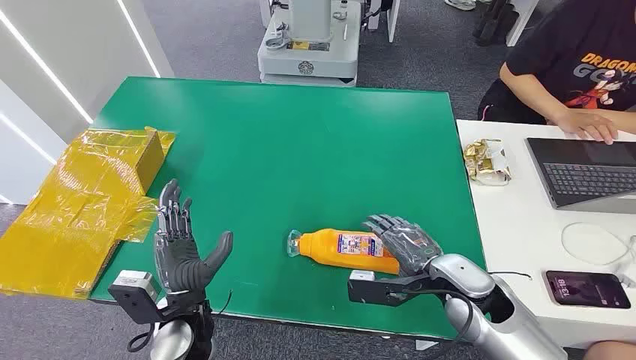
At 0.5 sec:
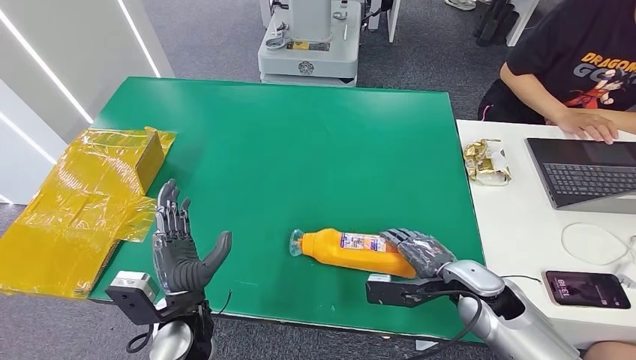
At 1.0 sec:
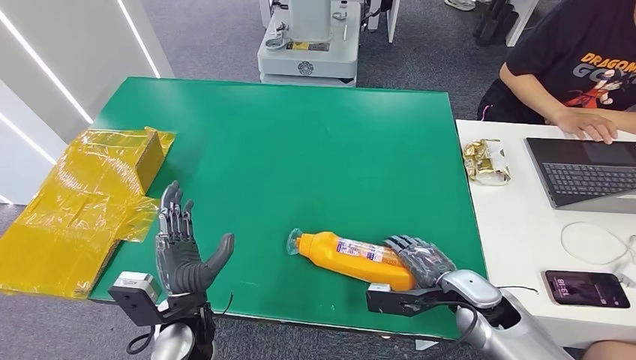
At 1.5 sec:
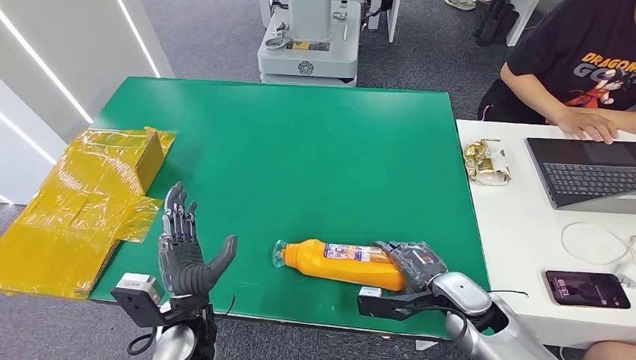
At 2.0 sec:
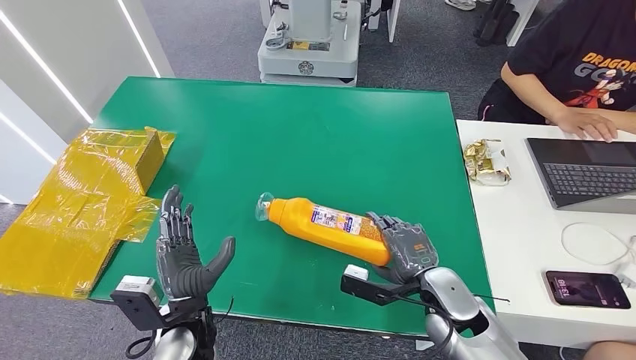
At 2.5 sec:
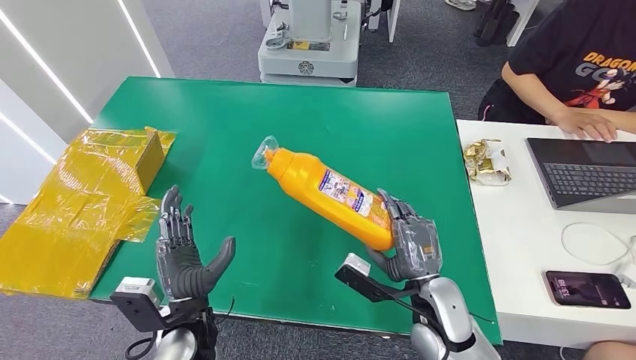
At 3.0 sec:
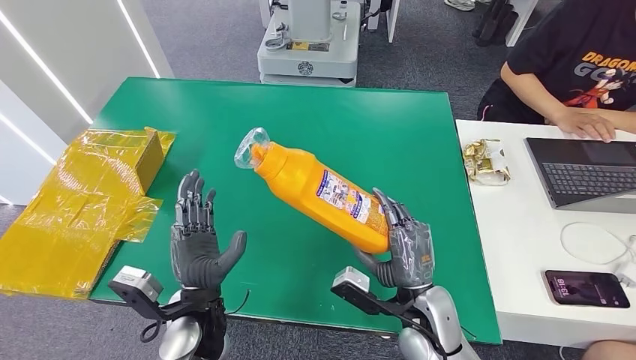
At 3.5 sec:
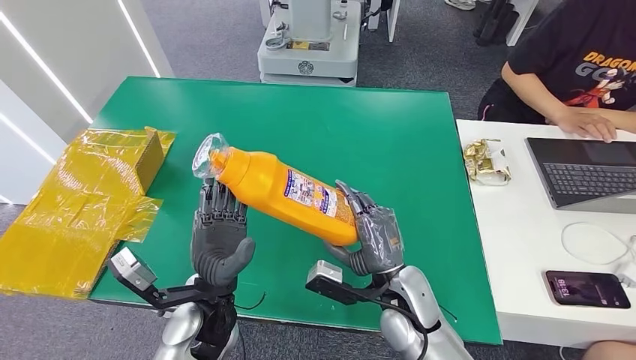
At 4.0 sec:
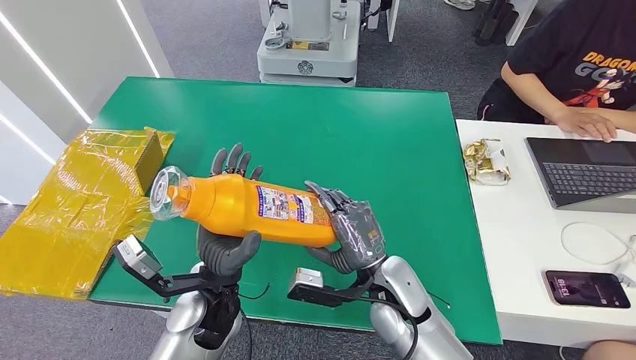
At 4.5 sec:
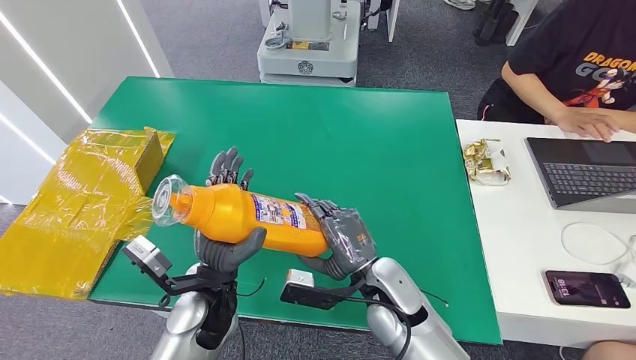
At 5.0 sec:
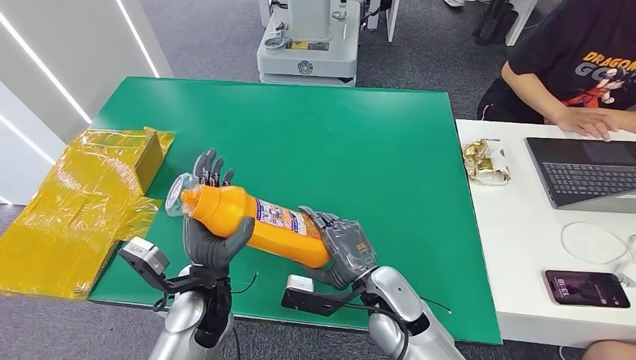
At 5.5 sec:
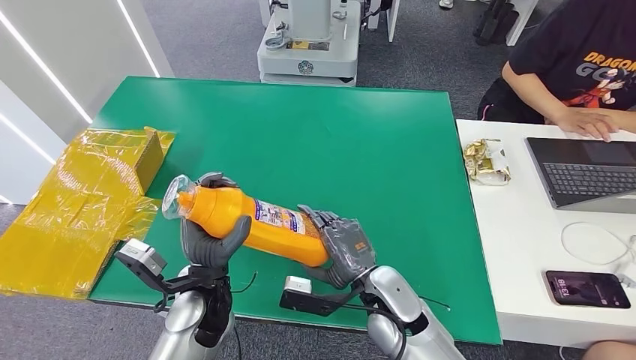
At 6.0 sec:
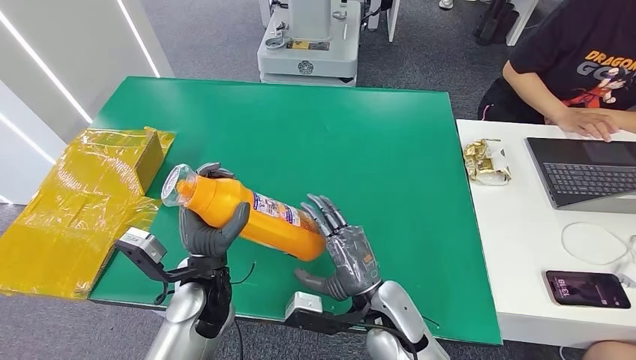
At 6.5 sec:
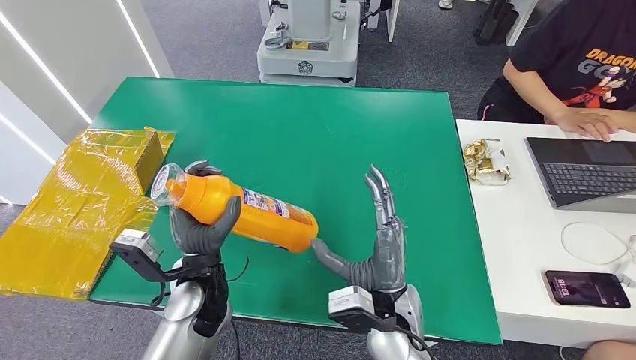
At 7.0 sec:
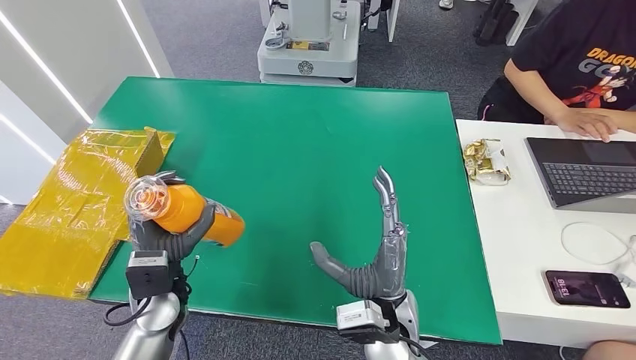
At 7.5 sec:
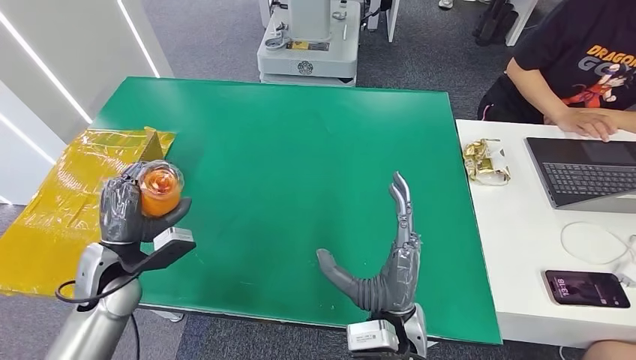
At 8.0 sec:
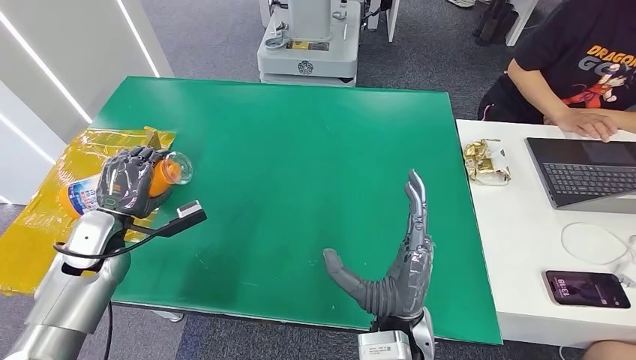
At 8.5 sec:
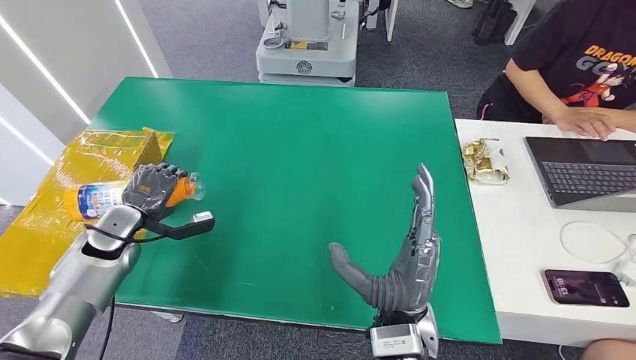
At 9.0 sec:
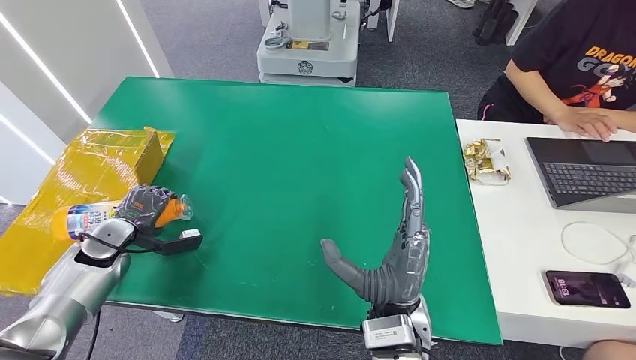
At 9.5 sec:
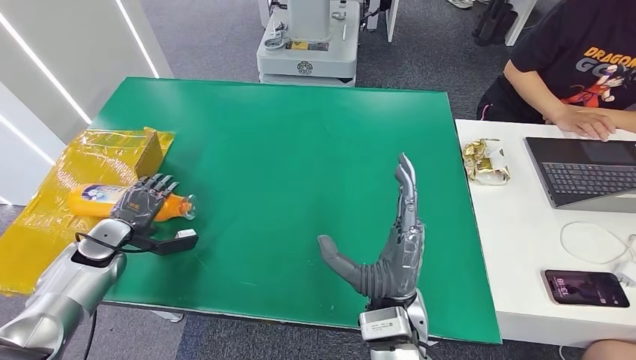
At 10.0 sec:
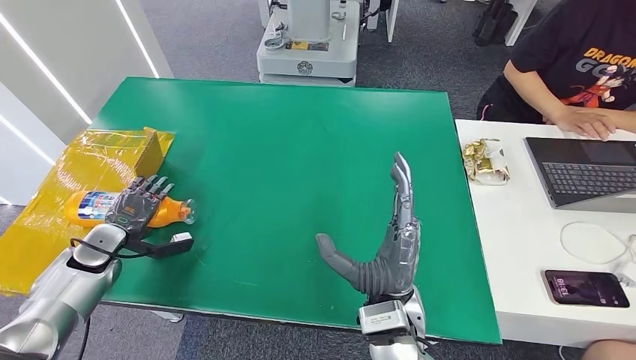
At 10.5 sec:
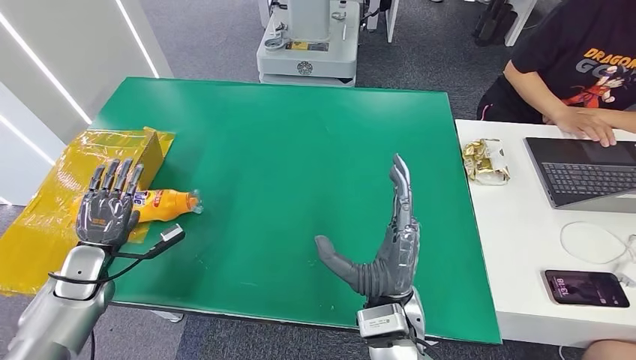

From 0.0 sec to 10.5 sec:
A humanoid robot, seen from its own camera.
Step, from 0.0 sec to 2.0 sec: Pick up the bottle from the table.
Step, from 3.0 sec to 10.5 sec: Turn the bottle to the front side.
From 2.0 sec to 4.0 sec: The right hand heads to the left, covering approximately 10 cm; the left hand ends up some 5 cm from where it was.
From 6.5 sec to 8.5 sec: The right hand moves some 5 cm. Meanwhile the left hand goes approximately 25 cm to the left.
From 8.5 sec to 10.5 sec: The left hand goes roughly 5 cm backward.

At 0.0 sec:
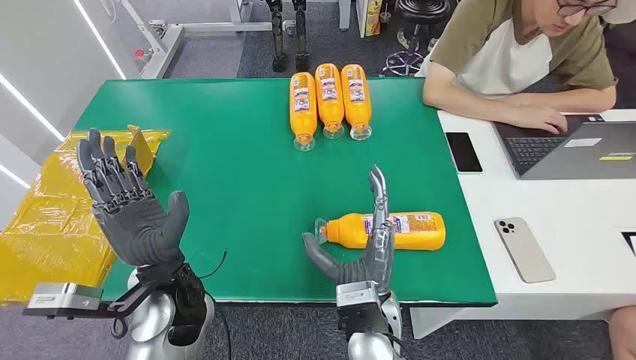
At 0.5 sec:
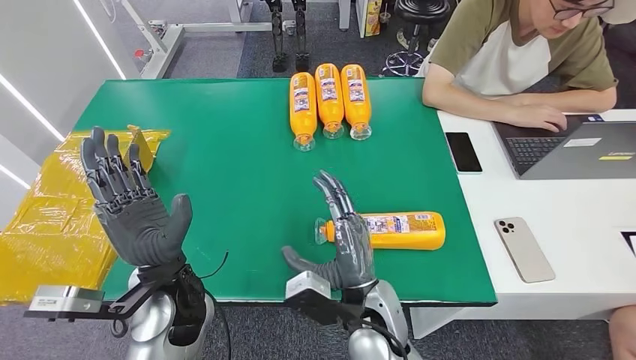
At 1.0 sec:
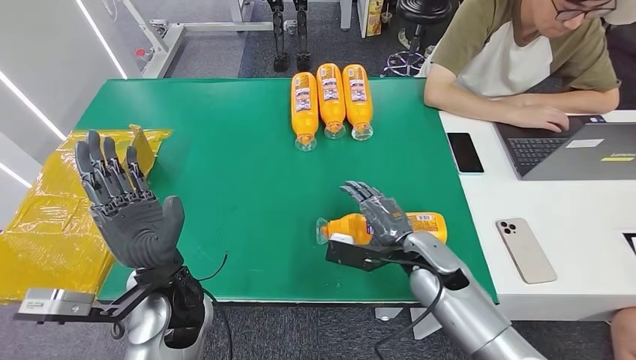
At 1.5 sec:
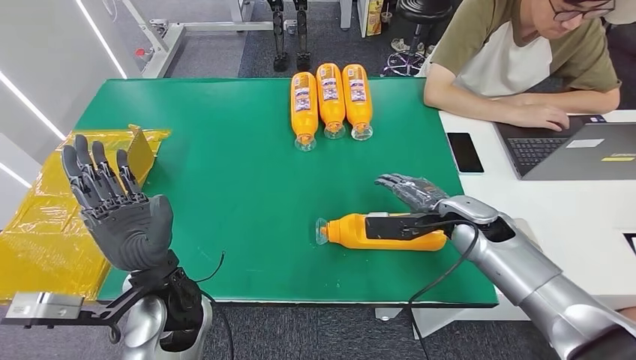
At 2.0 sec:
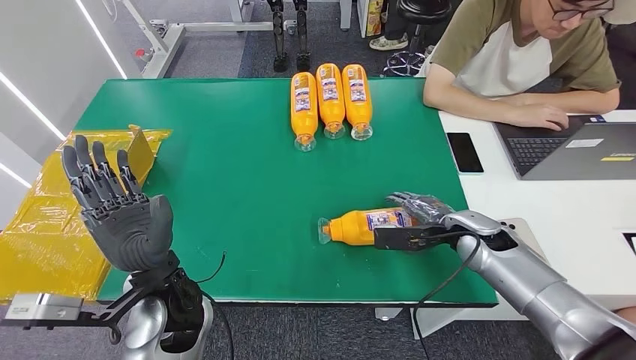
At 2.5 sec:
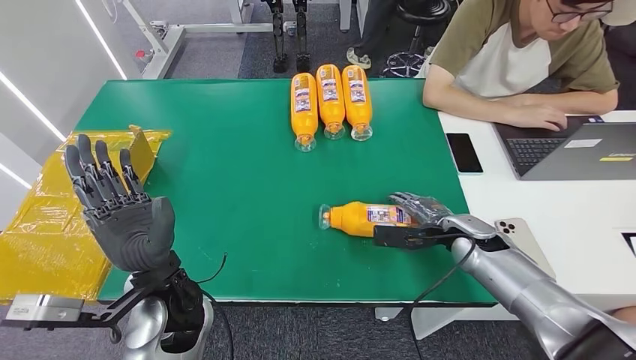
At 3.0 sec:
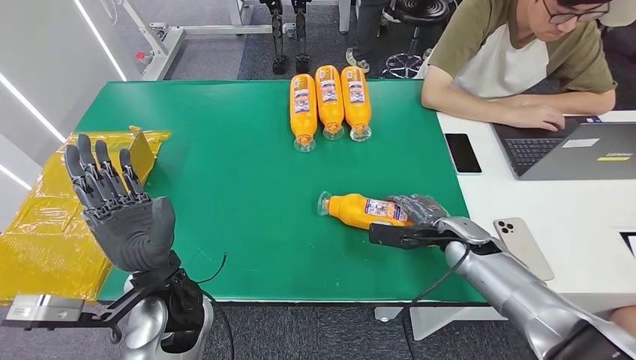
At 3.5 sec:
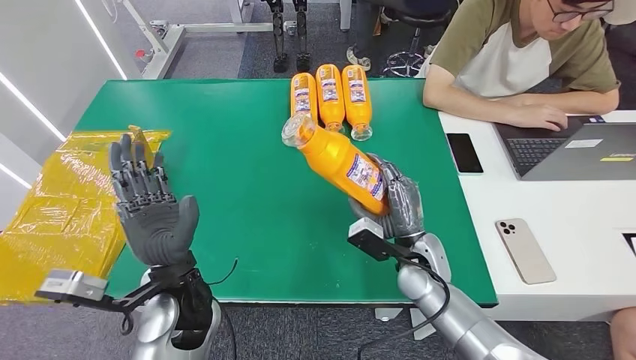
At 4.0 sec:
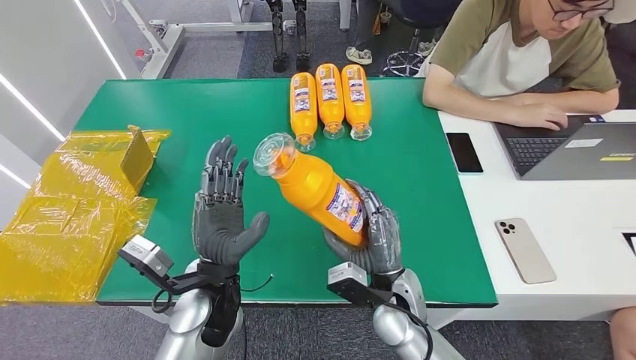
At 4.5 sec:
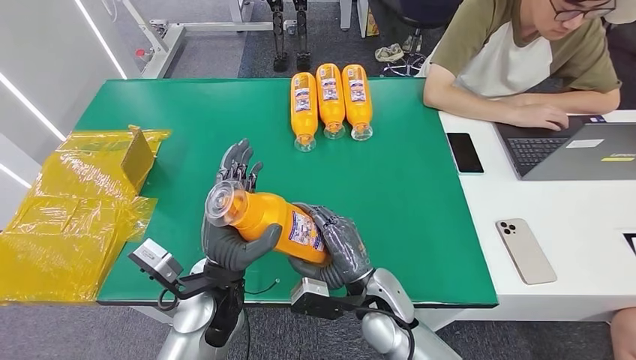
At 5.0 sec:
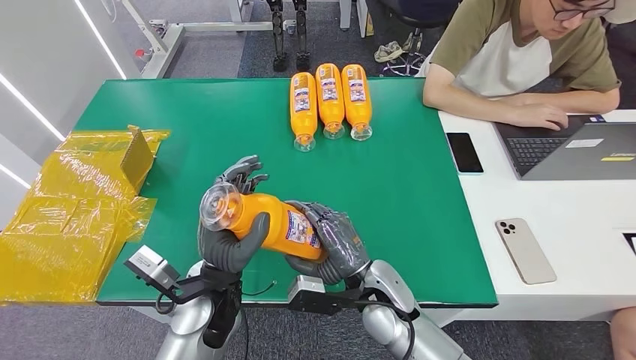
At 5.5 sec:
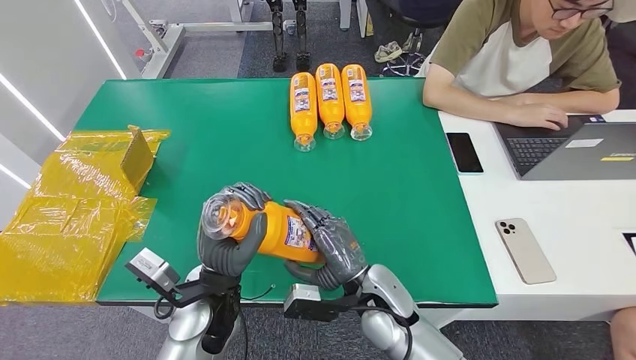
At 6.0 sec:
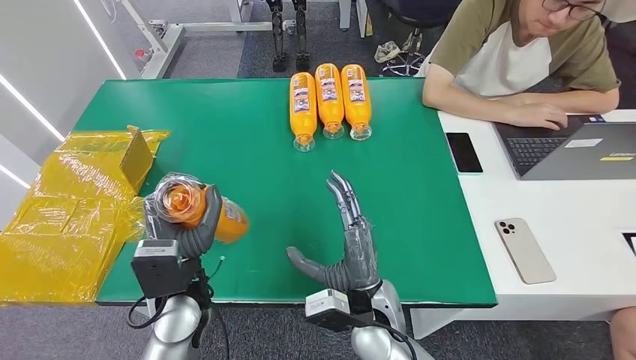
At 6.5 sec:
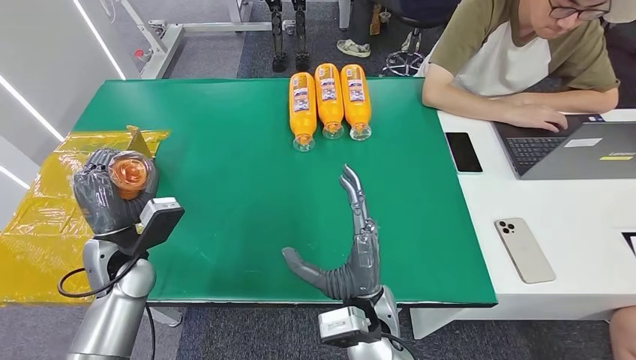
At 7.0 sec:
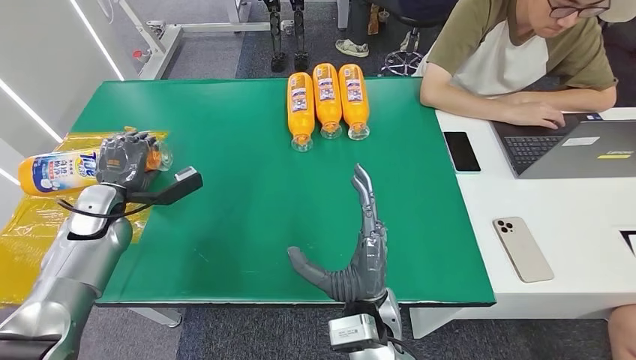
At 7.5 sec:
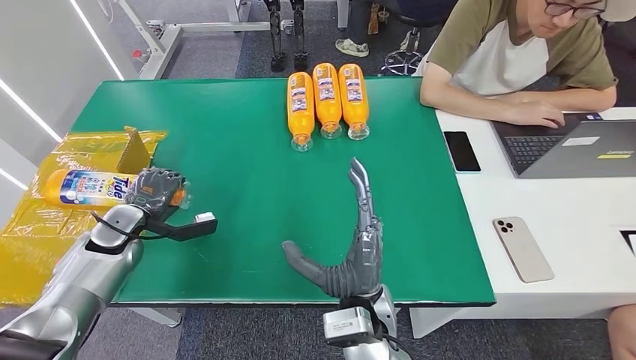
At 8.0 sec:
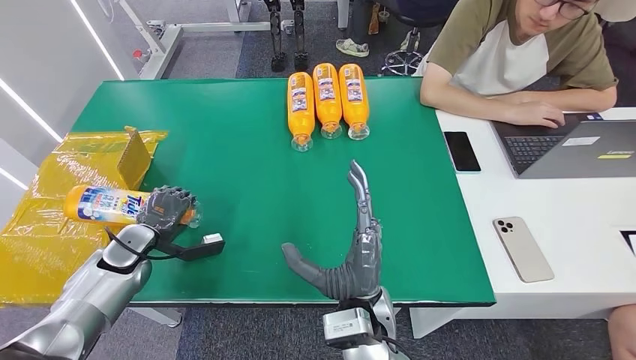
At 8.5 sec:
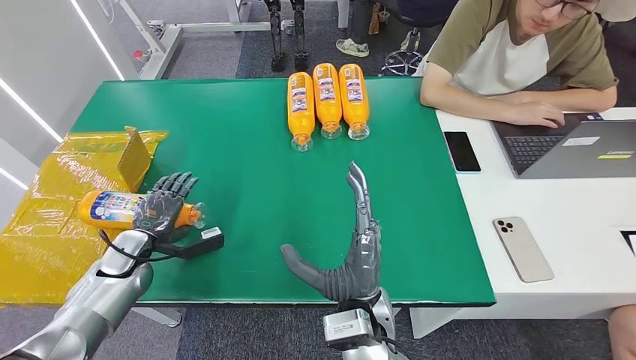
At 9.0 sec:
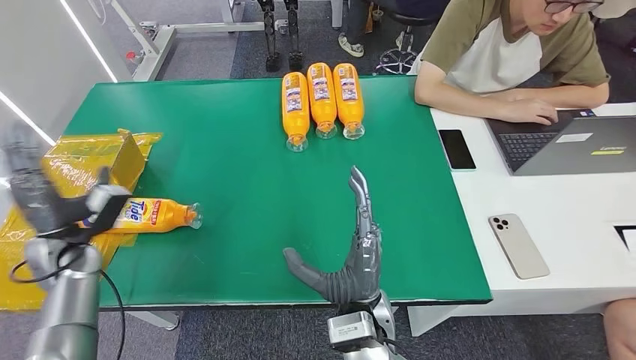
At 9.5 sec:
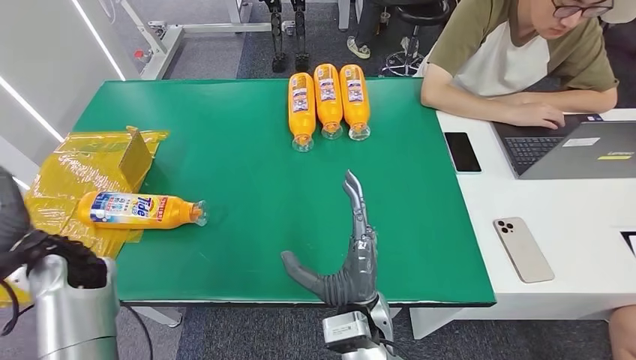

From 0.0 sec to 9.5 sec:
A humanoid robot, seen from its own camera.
Step, from 0.0 sec to 3.0 sec: Pick up the bottle from the table.
Step, from 3.5 sec to 9.5 sec: Turn the bottle to the front side.
From 7.5 sec to 9.5 sec: The left hand shifts roughly 5 cm upward.
